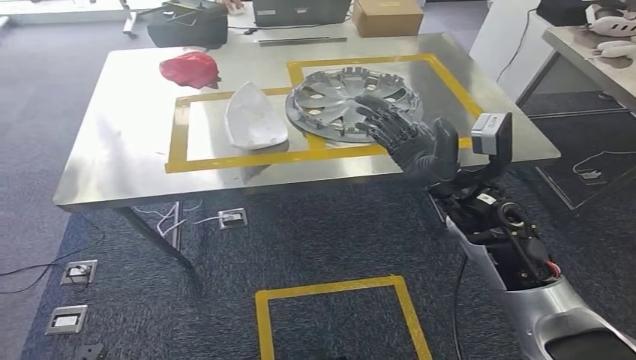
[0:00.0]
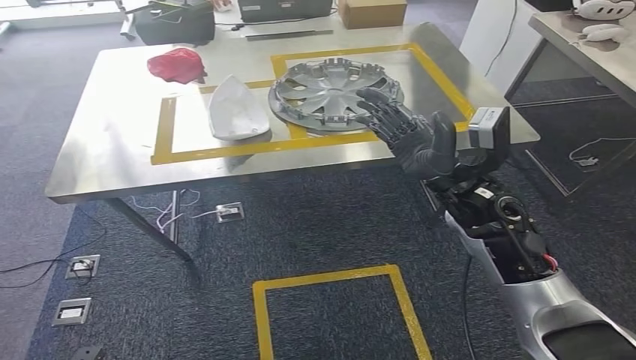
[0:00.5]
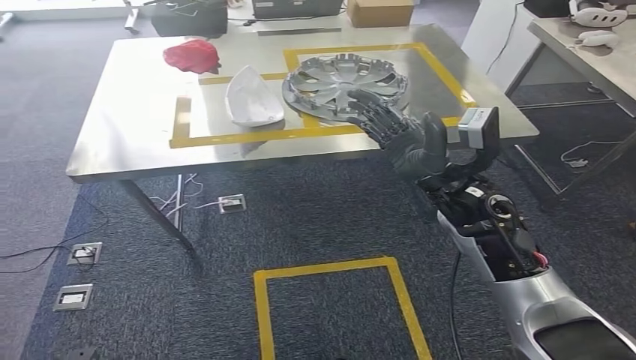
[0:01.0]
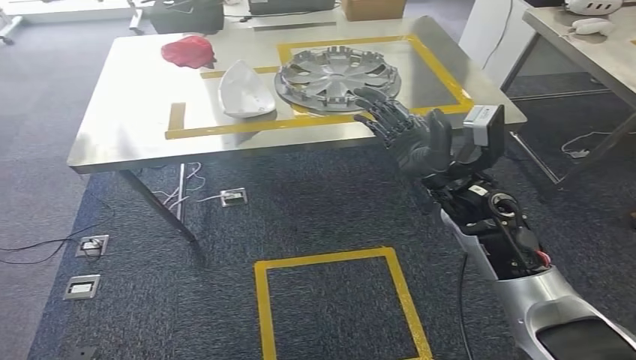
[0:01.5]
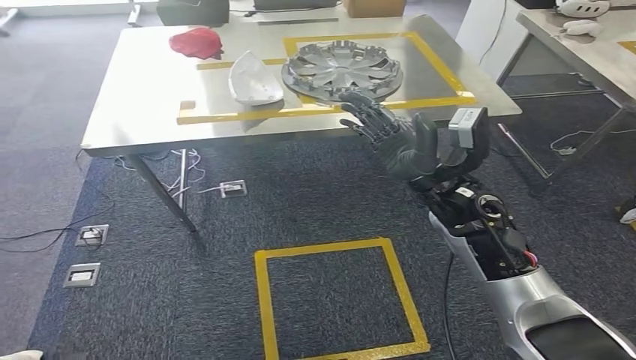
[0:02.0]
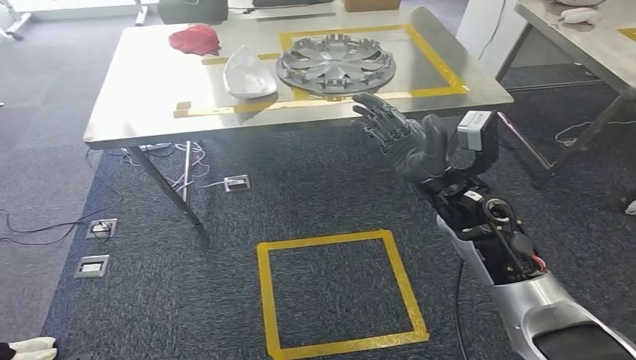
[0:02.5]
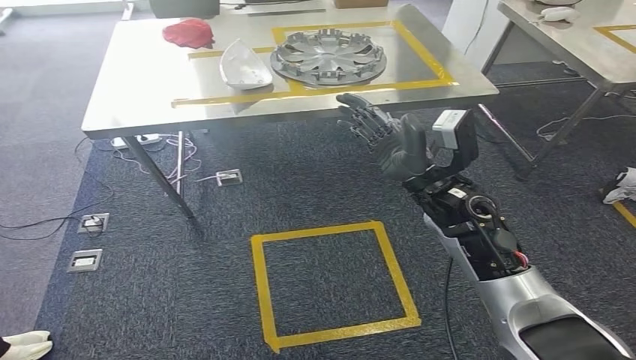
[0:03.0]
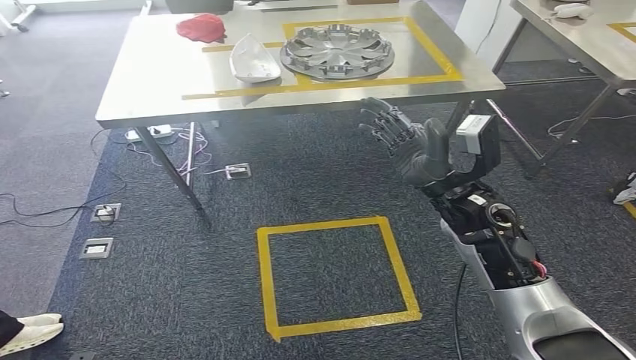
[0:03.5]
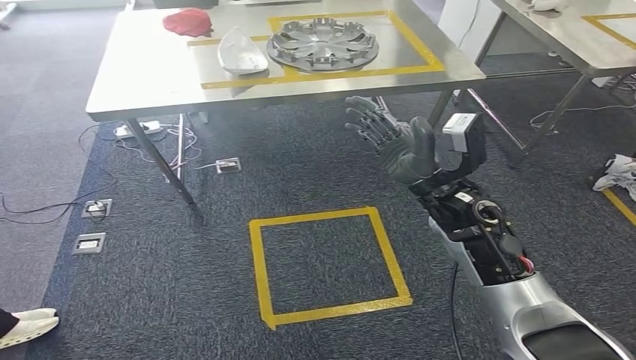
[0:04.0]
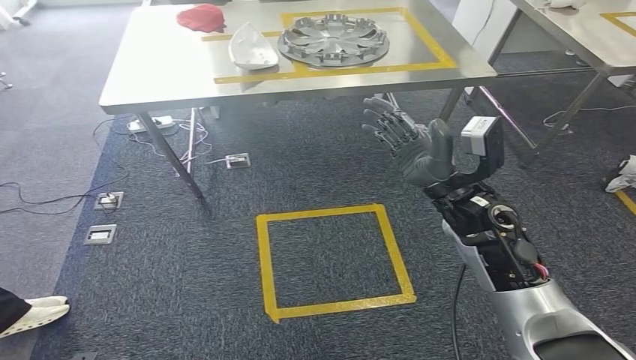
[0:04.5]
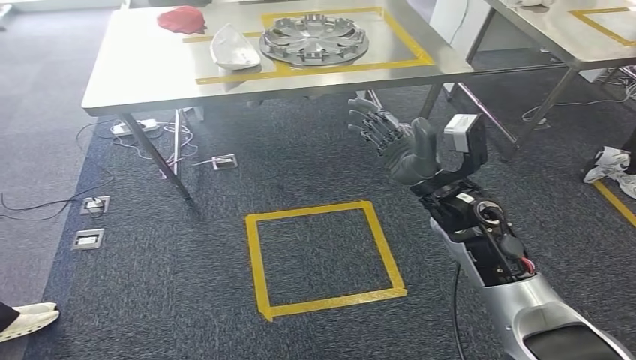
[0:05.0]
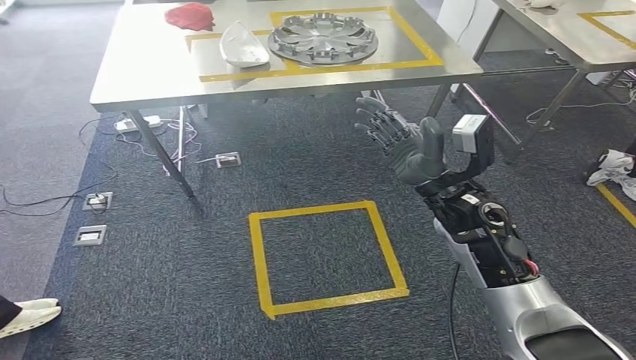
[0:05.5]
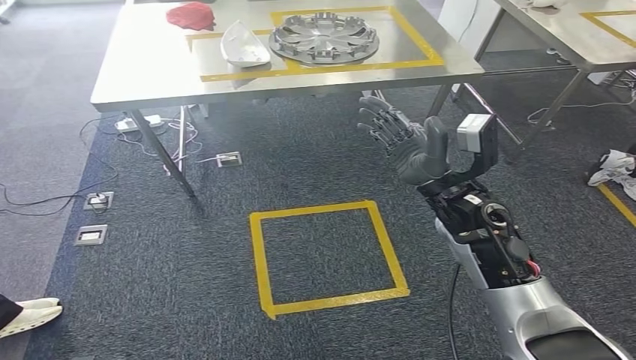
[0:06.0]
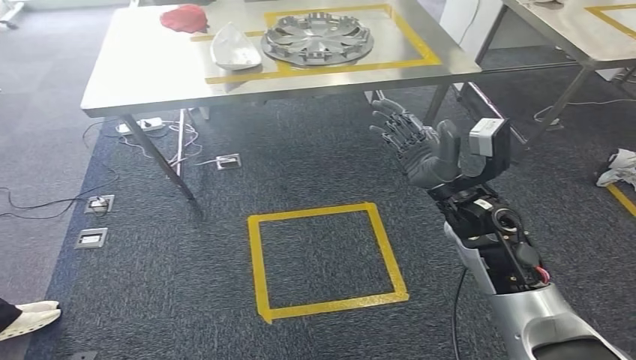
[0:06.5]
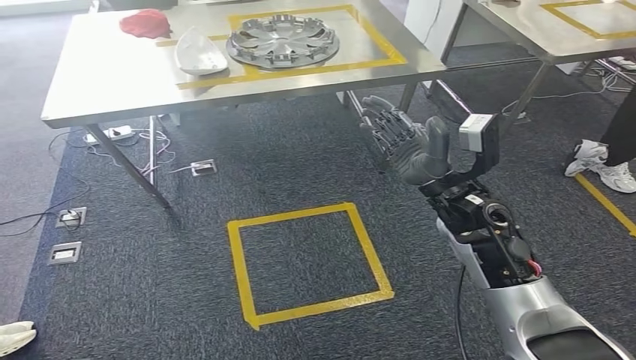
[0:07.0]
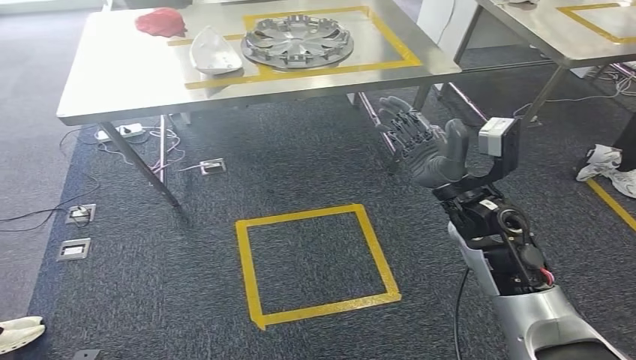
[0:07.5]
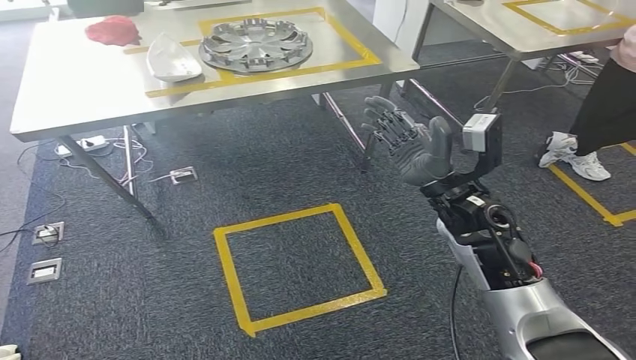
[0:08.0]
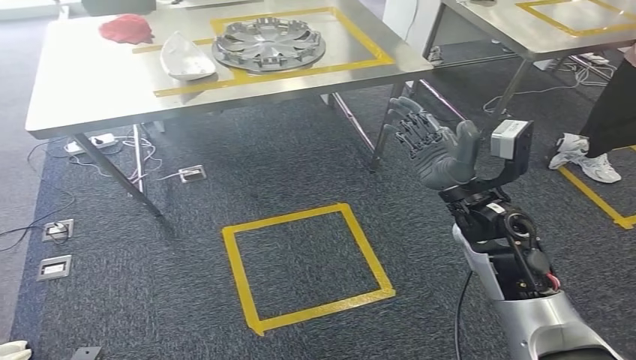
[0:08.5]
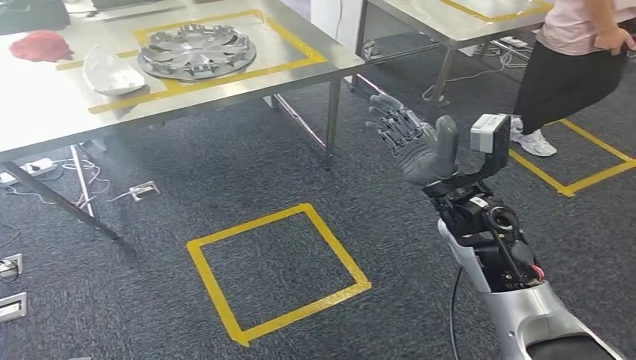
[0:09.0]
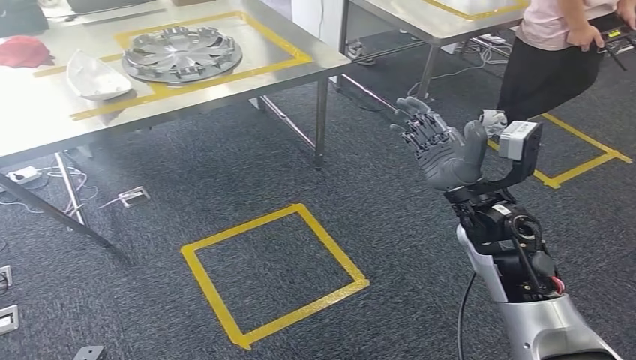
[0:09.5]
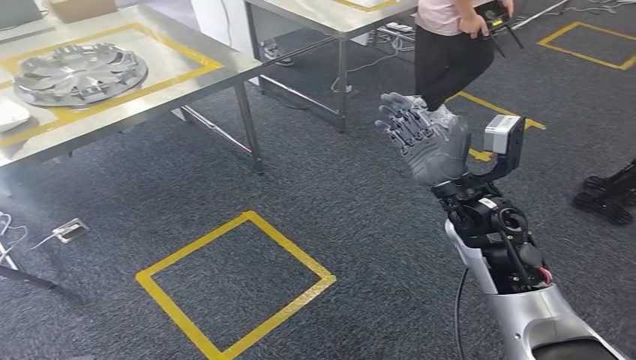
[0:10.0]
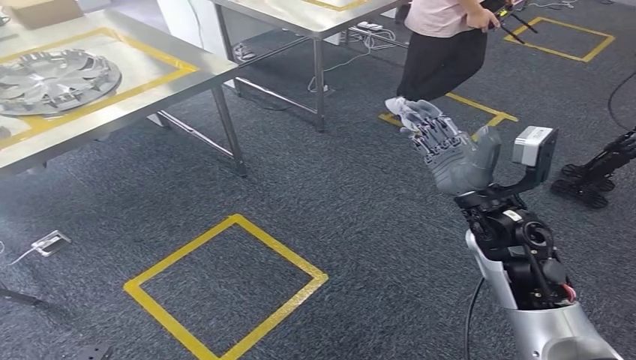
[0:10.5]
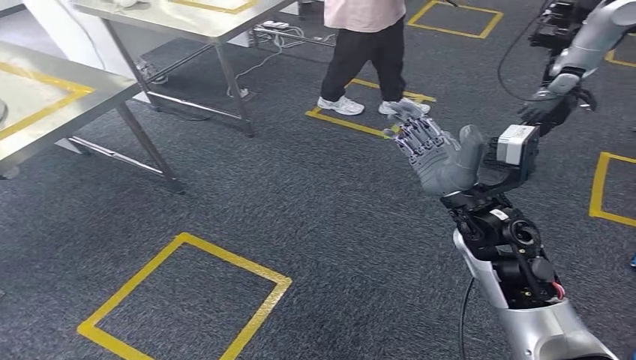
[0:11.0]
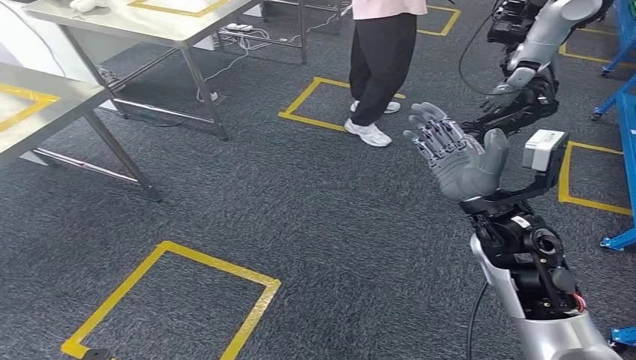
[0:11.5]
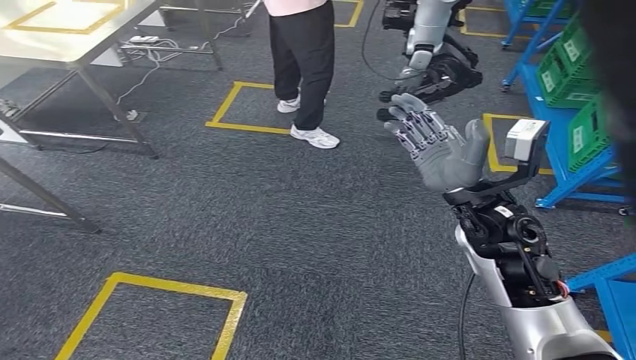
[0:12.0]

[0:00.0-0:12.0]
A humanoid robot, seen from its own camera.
0:04.0 to 0:06.0: Both hands stay put.

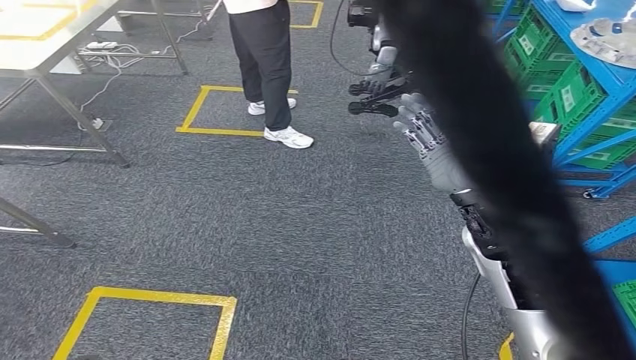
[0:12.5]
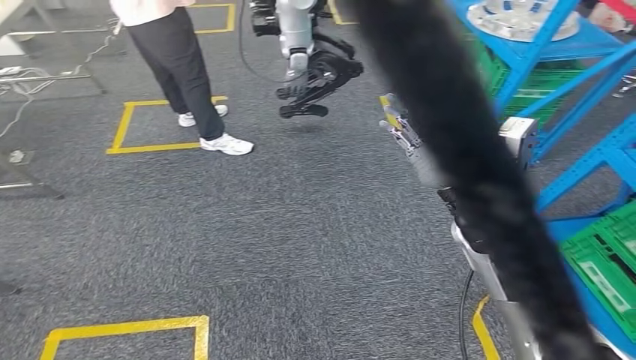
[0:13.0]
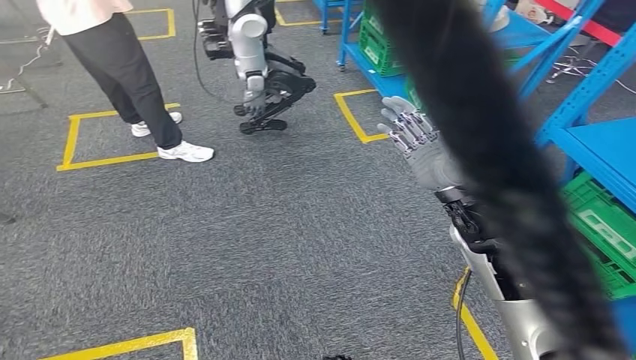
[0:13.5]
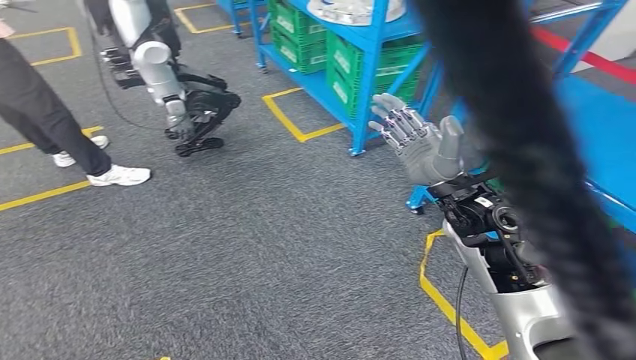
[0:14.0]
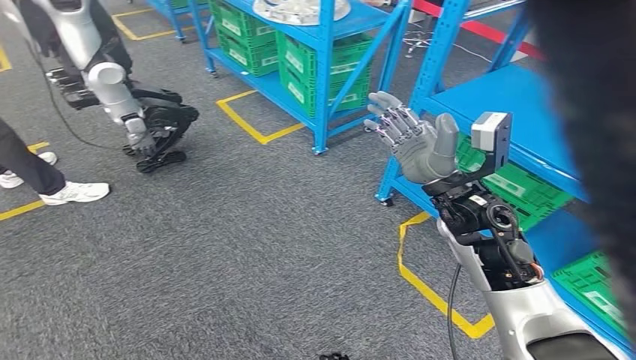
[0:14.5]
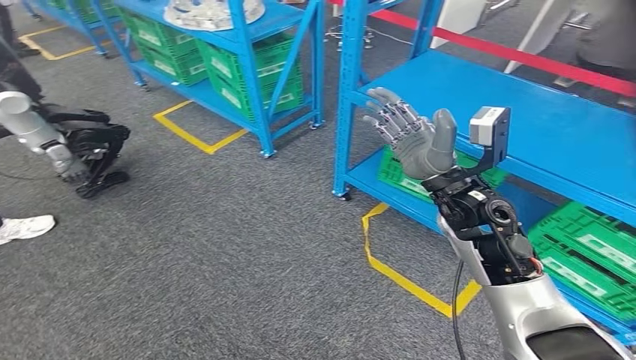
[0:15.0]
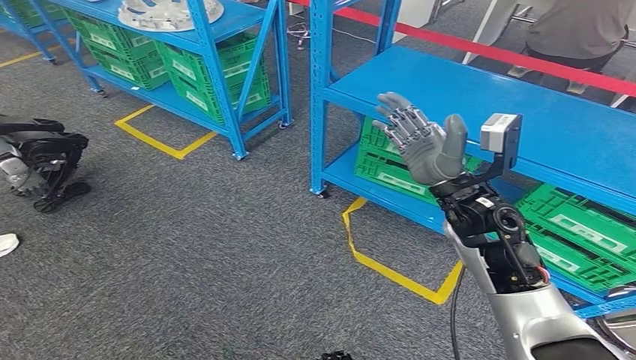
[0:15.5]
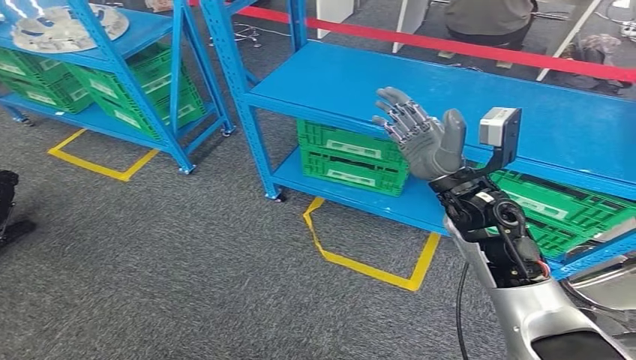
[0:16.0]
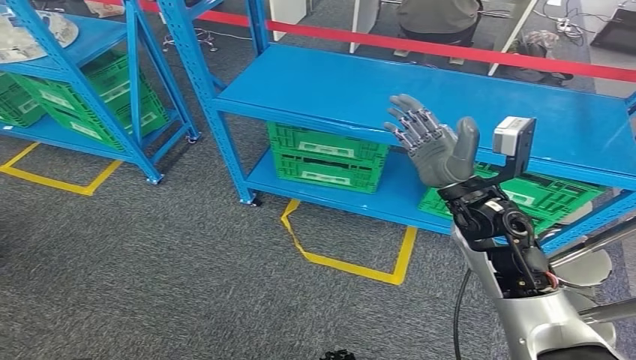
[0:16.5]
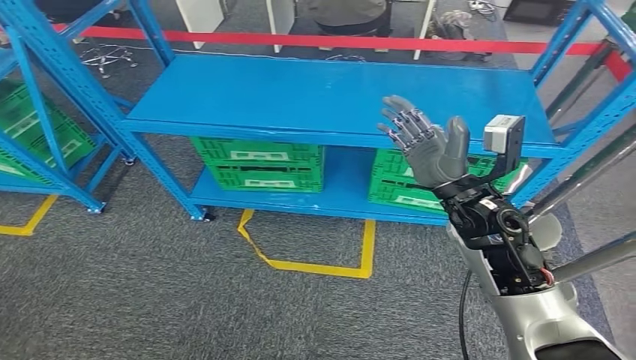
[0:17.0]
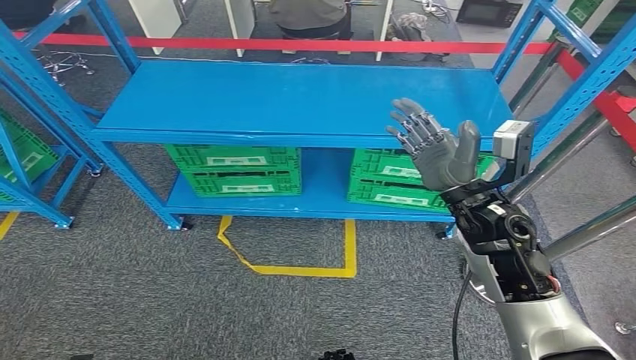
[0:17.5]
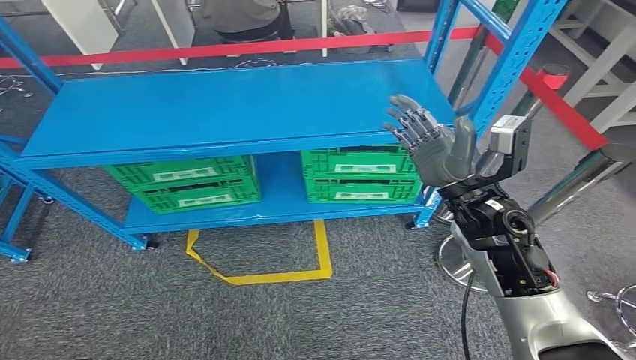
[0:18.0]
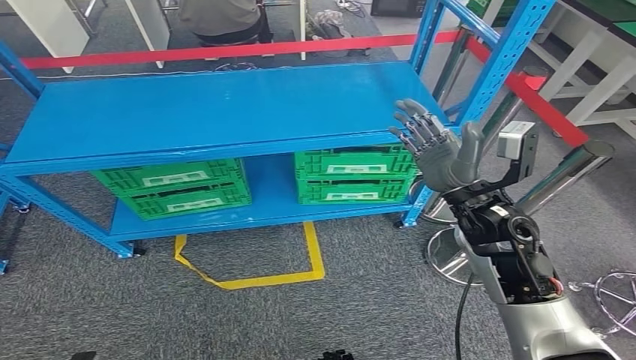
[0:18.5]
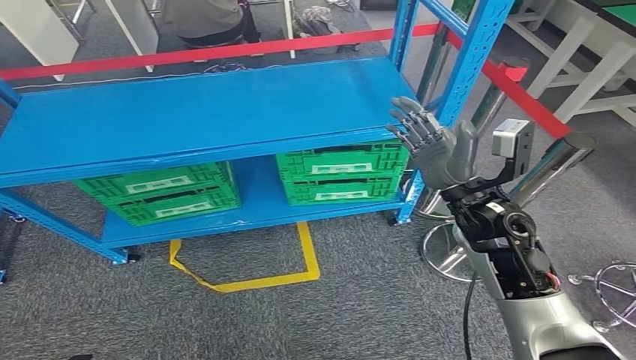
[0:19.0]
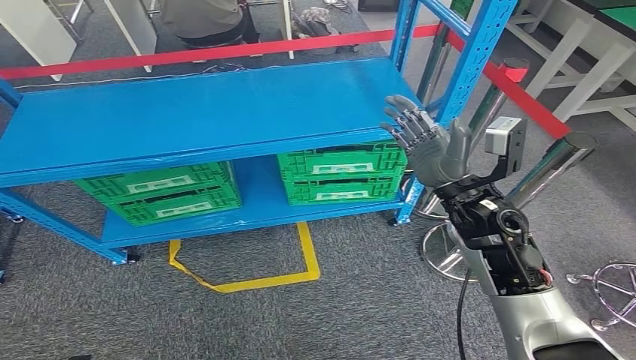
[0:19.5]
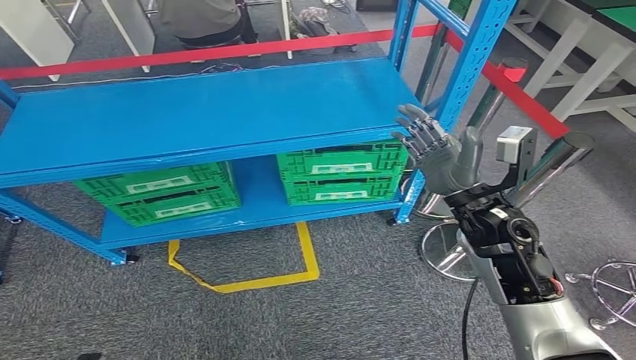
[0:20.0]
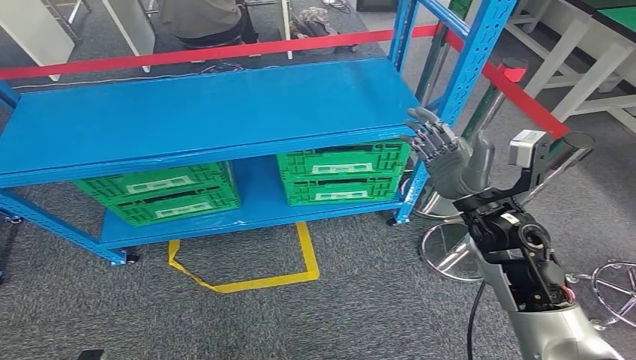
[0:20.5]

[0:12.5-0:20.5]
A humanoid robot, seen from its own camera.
Step, 0:12.5 to 0:20.5: Return to the initial position at the workbench.
